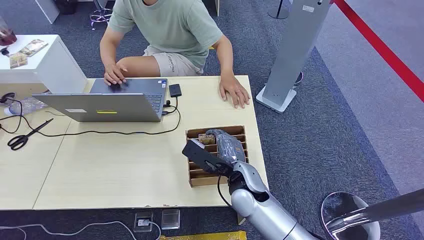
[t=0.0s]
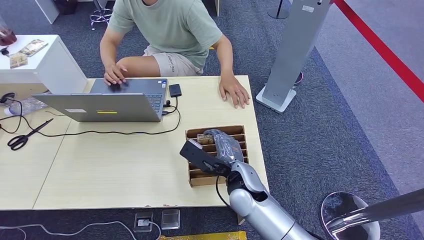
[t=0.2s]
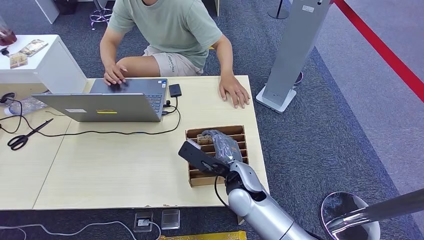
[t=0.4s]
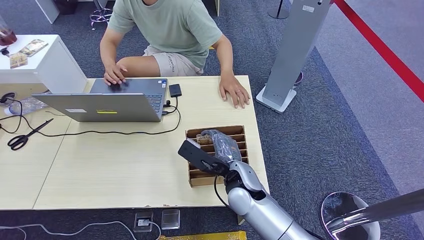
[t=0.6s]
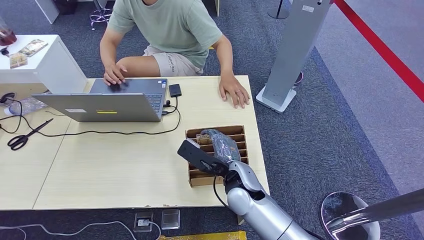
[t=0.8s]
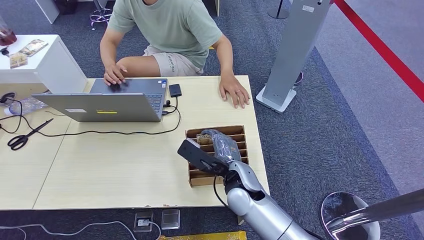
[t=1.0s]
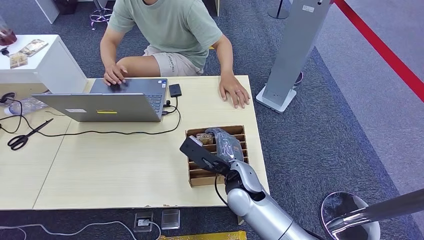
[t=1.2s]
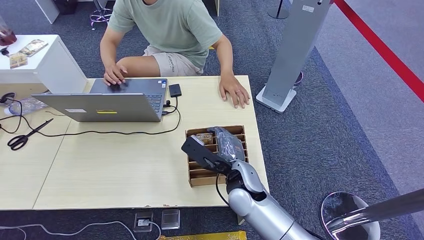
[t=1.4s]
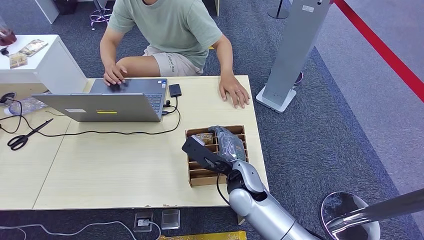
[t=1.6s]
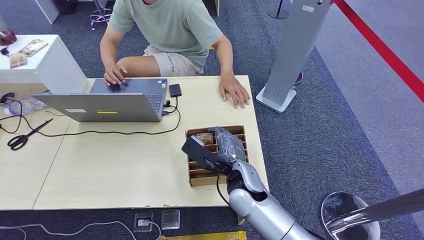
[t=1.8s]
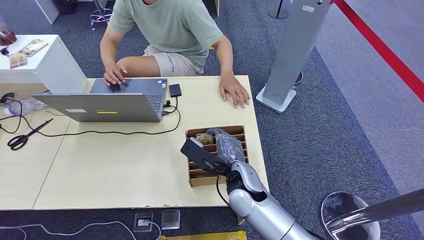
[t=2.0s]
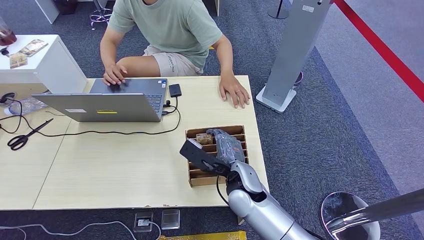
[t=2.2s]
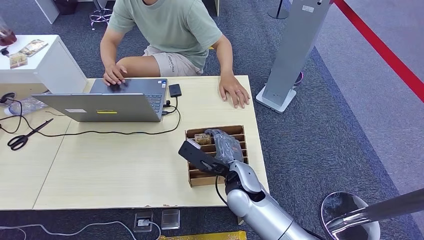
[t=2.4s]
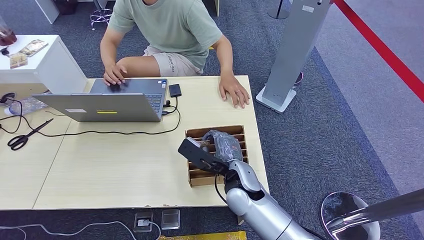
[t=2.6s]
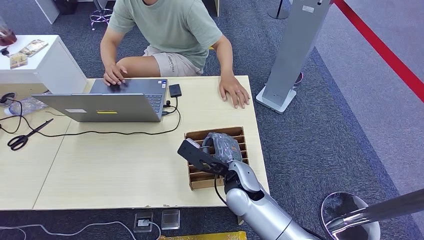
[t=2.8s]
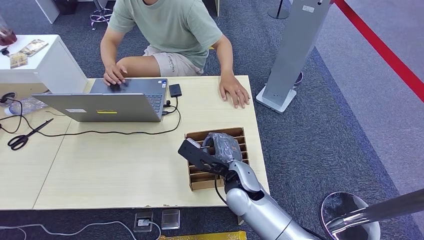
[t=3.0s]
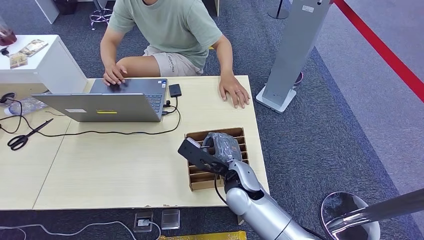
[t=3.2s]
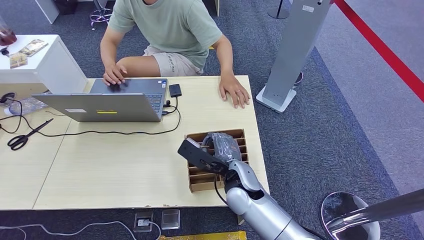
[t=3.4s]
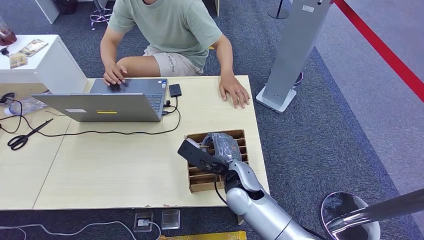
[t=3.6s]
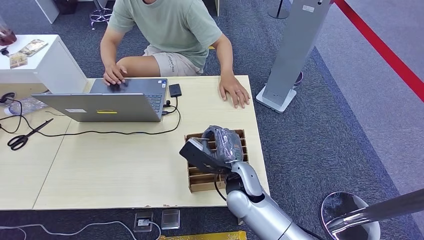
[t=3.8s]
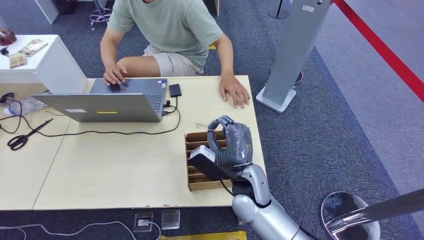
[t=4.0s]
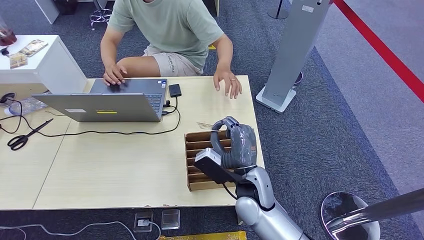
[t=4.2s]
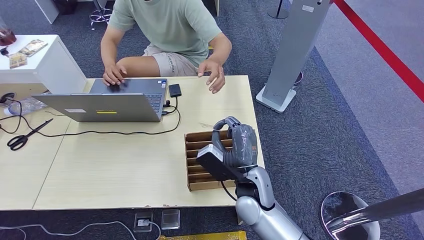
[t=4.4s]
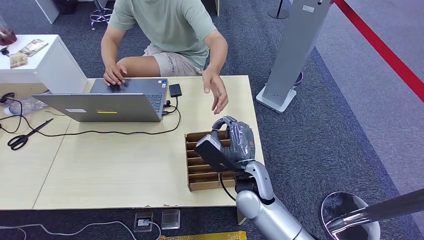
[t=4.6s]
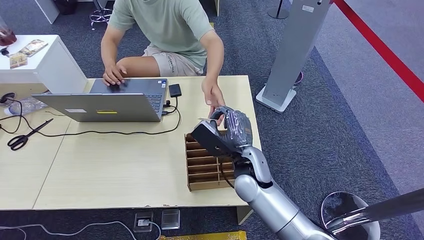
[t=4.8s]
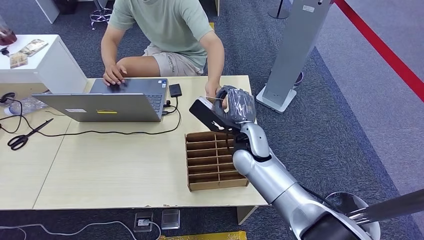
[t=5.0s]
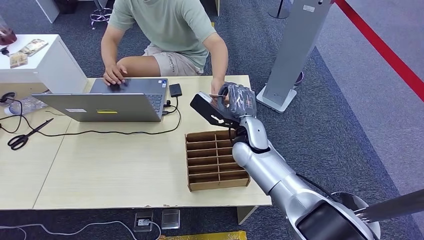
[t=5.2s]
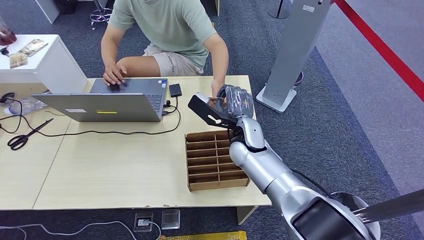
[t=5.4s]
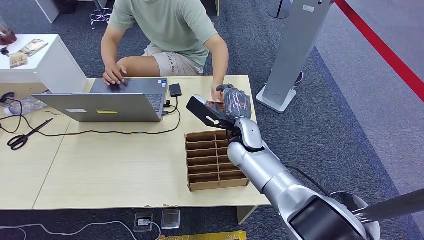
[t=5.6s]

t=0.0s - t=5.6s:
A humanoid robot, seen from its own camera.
Step, t=0.0s - t=3.2s: Pick up the room card from the card holder.
Step, t=4.2s - t=5.6s: Hand the room card to the target.
t=1.4s - t=2.8s: Both hands stay about where they are.
t=4.2s - t=5.6s: The right hand shifts some 15 cm forward.
